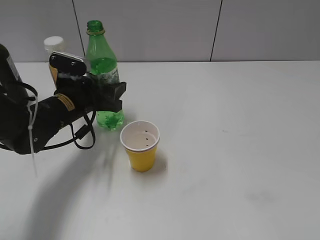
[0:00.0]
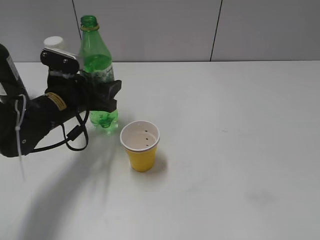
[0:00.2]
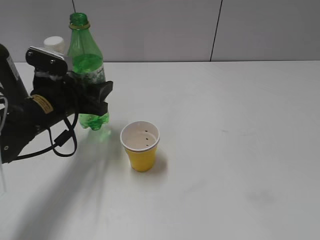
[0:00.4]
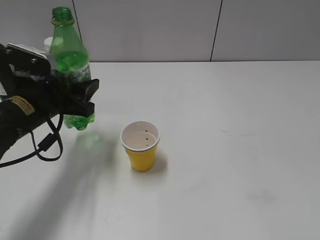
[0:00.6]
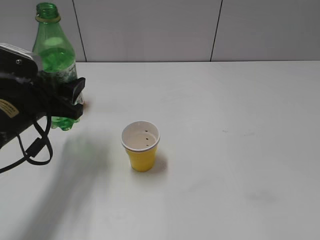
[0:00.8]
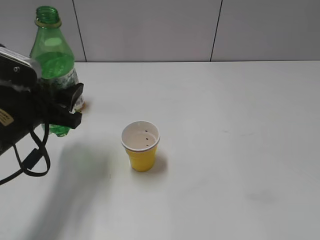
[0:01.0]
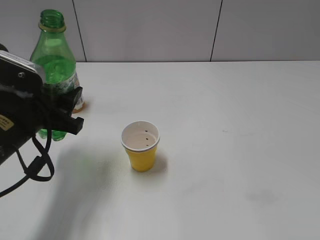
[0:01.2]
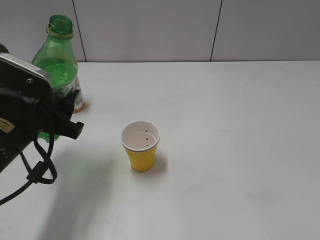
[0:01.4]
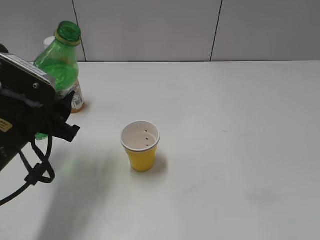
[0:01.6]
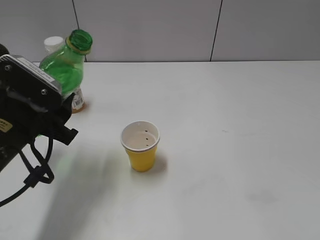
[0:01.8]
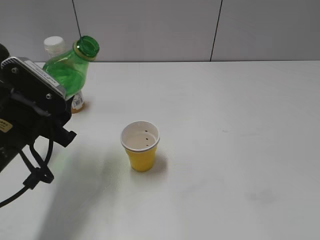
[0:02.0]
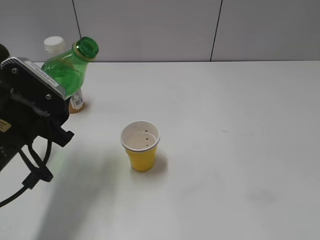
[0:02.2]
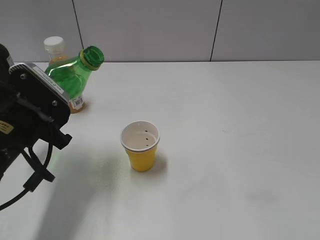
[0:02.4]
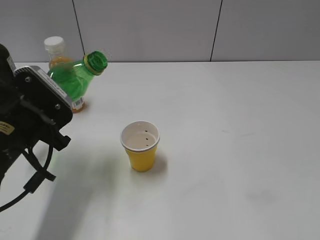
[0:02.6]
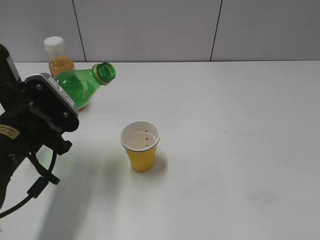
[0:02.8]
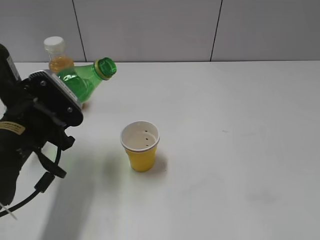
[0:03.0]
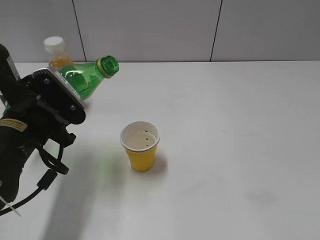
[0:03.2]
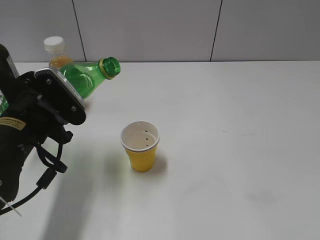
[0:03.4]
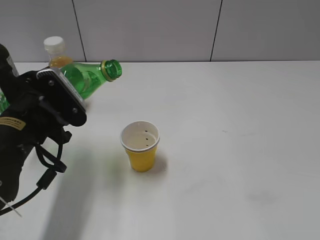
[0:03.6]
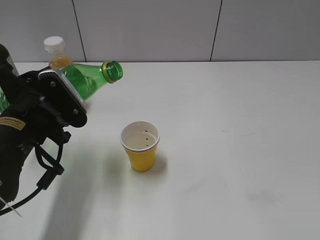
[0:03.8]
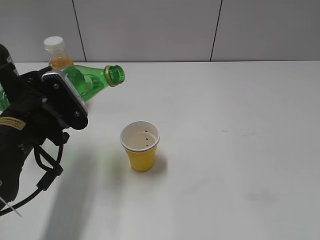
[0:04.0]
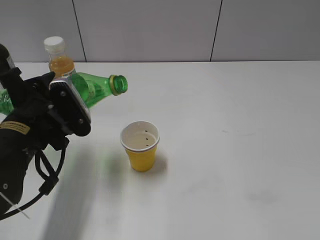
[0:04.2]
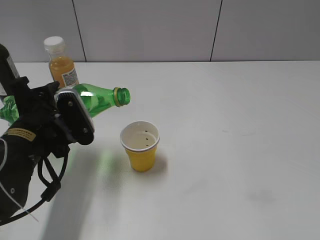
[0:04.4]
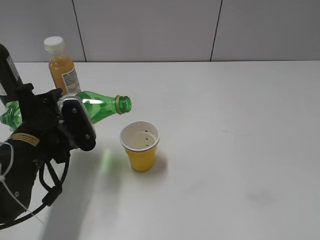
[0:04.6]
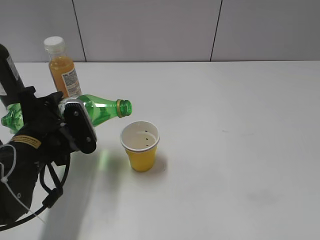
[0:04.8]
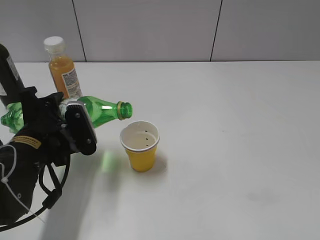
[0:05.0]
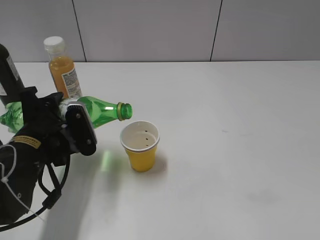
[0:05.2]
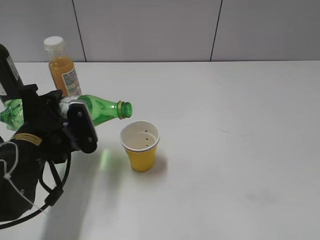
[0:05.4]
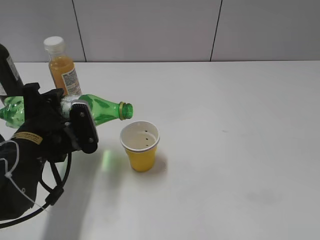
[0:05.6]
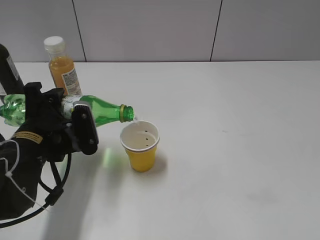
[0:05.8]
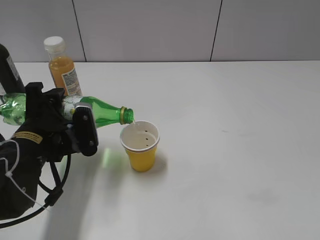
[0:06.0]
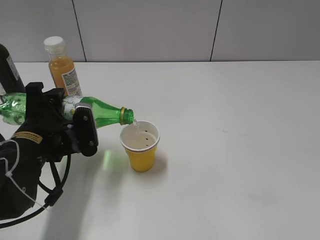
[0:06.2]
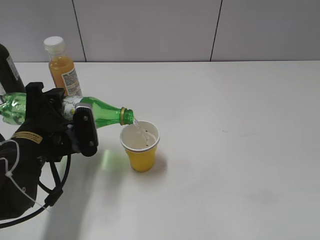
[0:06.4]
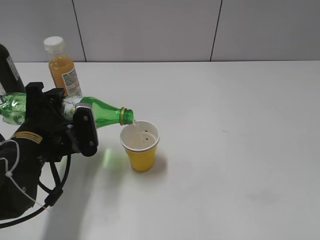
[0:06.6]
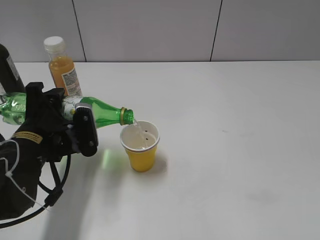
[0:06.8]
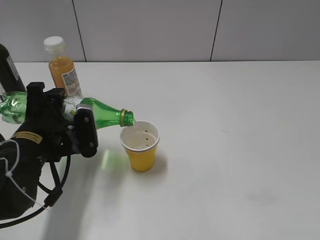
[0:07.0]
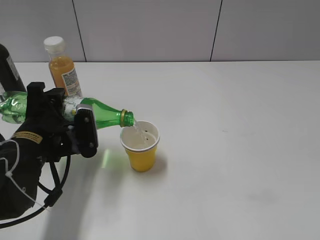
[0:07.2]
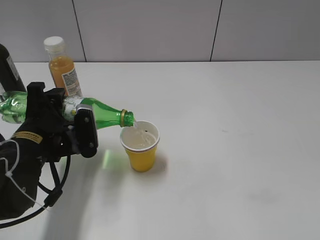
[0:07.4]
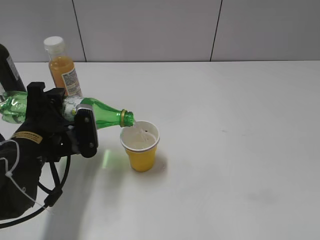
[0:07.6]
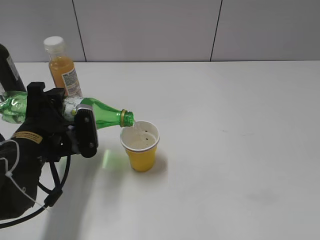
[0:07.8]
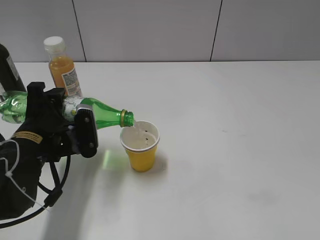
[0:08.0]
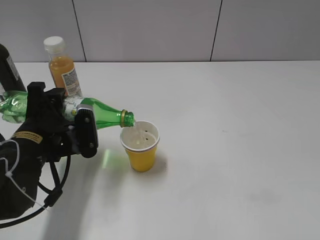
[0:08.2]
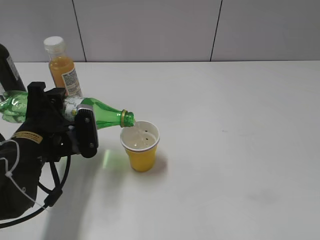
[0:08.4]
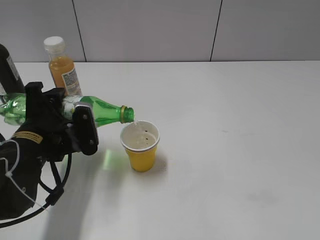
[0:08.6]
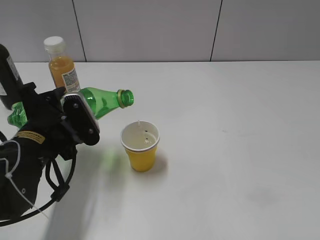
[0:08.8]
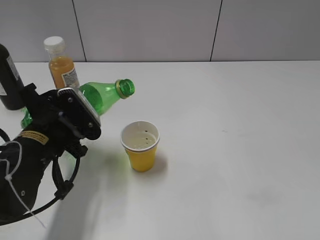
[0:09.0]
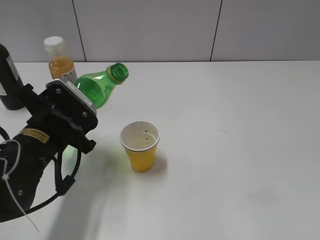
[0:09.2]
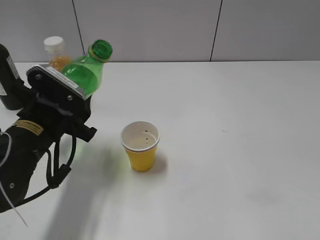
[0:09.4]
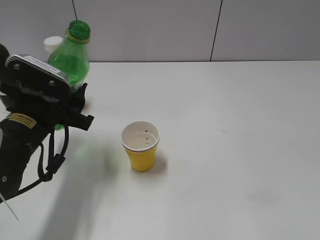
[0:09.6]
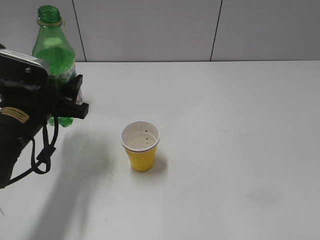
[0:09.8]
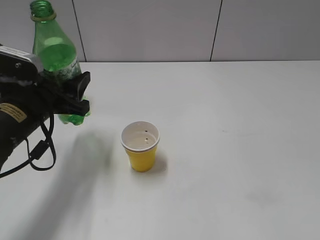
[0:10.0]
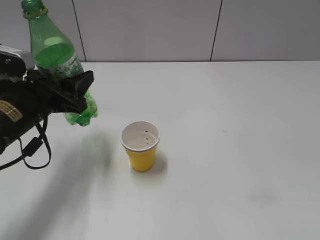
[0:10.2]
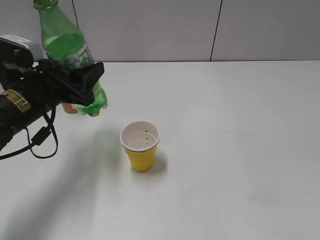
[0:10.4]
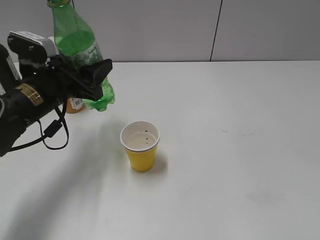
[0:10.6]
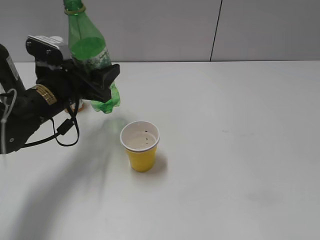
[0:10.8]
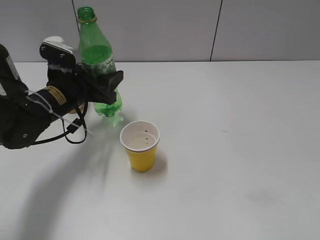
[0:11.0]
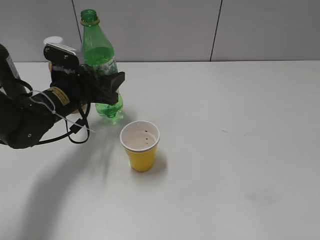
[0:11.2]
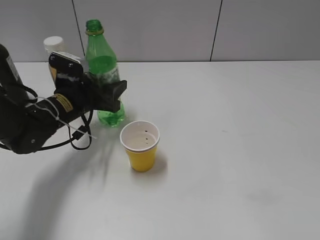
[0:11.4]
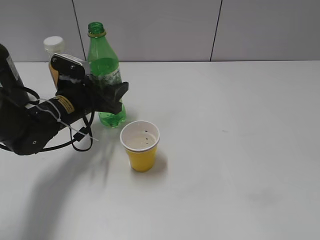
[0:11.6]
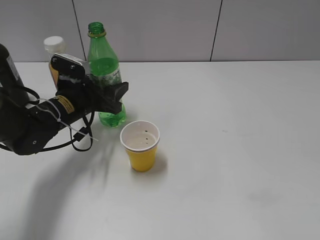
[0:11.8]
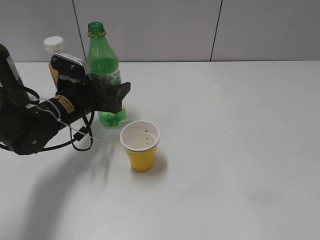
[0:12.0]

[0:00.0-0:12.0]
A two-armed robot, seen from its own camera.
Step, 0:00.0 to 0:08.8: Pour the sprite from bottle to cup with left gripper.
0:00.0 to 0:01.6: The left gripper moves backward and upward, about 15 cm.
0:03.0 to 0:04.4: There are only small adjustments of the grippers.
0:04.4 to 0:06.0: The grippers make only small movements.
0:06.0 to 0:07.6: The two grippers keep their place.
0:09.0 to 0:10.4: The left gripper changes place by roughly 5 cm.
0:10.4 to 0:12.0: The left gripper shifts some 10 cm downward and forward, and opens its fingers.

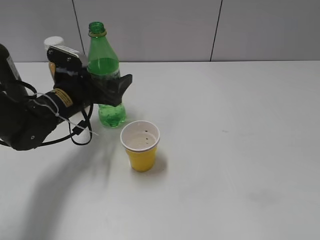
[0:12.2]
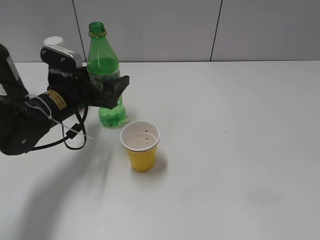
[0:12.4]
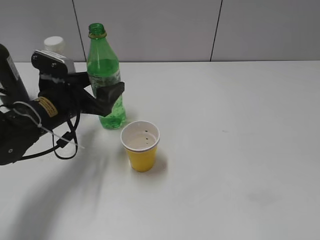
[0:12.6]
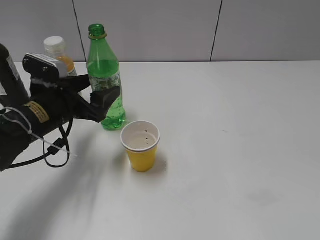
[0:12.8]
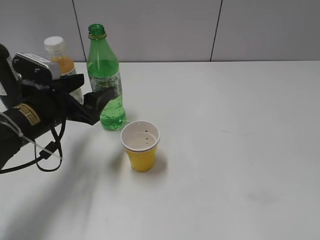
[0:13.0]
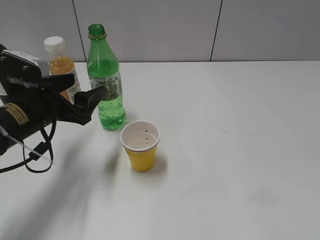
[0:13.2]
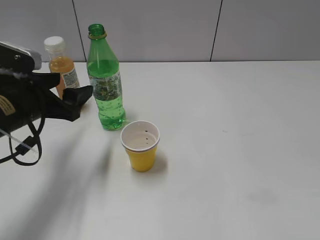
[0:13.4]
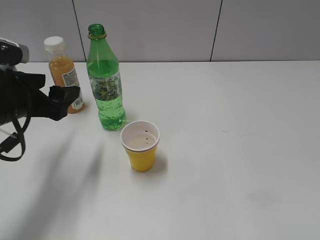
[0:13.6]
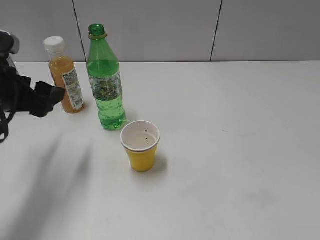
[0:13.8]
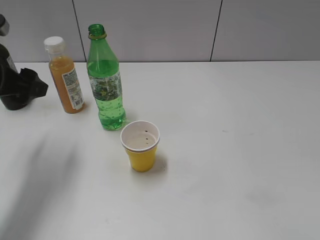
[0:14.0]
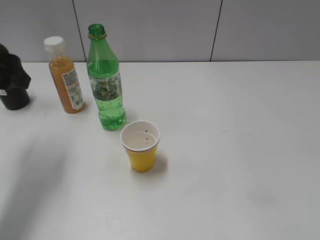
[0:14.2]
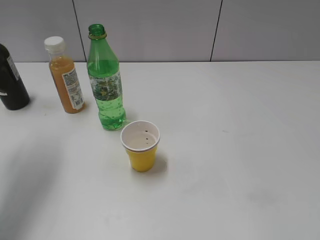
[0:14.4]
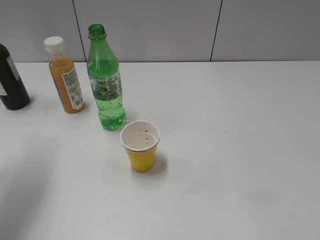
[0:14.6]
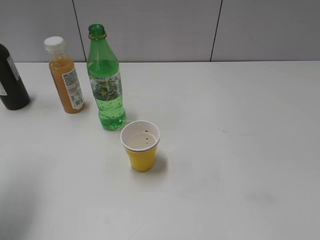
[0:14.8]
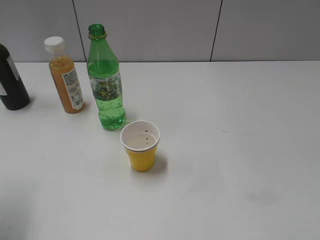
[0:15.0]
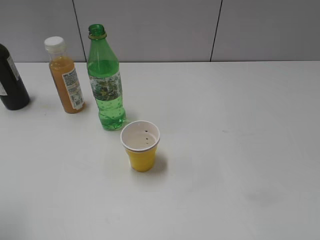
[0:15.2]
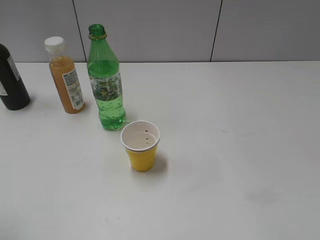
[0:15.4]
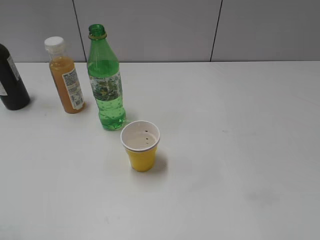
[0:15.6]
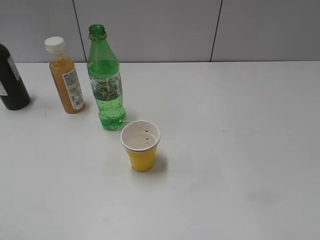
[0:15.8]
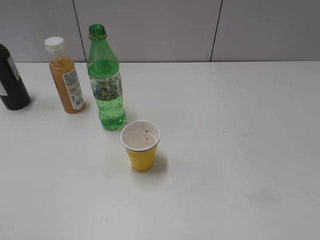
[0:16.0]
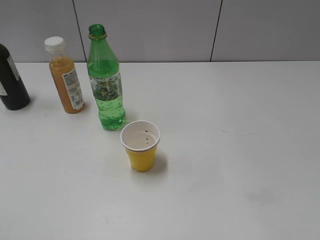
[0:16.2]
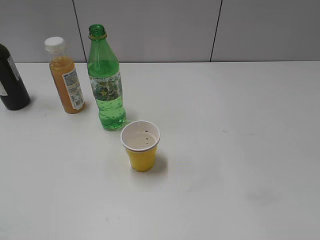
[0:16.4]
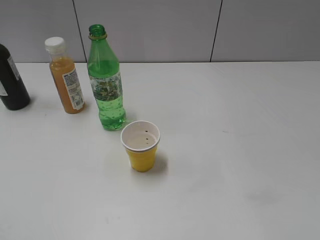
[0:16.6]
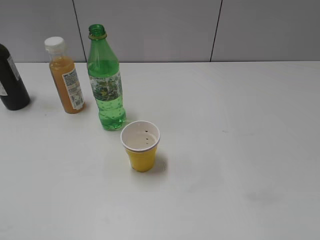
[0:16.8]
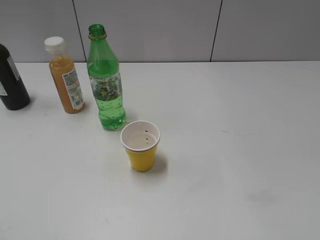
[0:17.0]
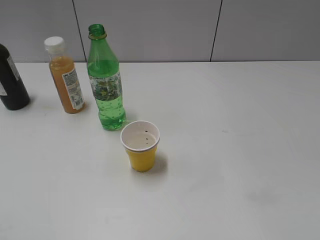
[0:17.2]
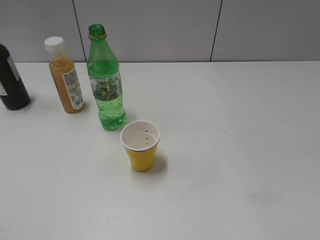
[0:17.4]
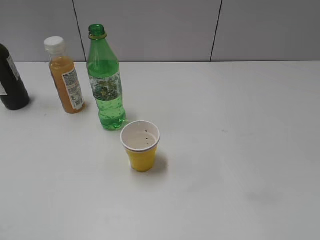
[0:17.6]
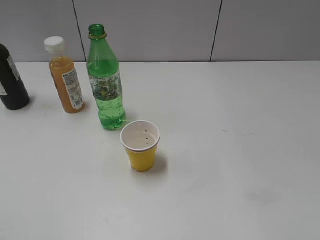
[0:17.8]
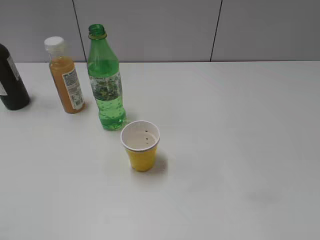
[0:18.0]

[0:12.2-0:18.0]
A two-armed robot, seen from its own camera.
0:12.2 to 0:13.6: The left gripper moves backward, upward and to the left, approximately 15 cm.
0:13.6 to 0:15.0: The left gripper travels backward, upward and to the left by some 15 cm.
0:15.0 to 0:16.6: The left gripper travels backward by approximately 20 cm.
0:16.6 to 0:18.0: Neither gripper changes place.

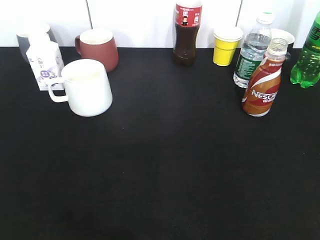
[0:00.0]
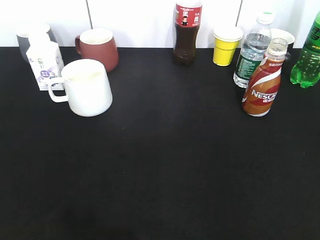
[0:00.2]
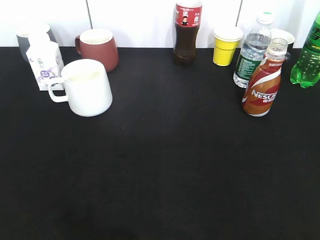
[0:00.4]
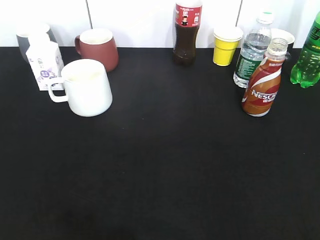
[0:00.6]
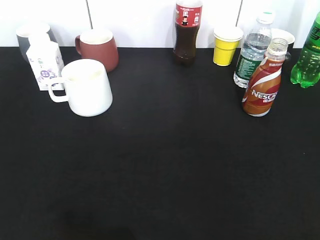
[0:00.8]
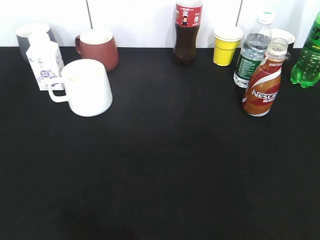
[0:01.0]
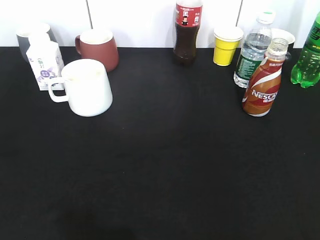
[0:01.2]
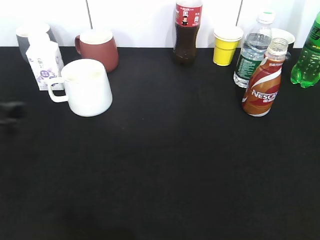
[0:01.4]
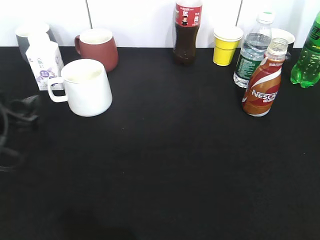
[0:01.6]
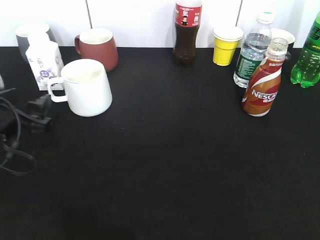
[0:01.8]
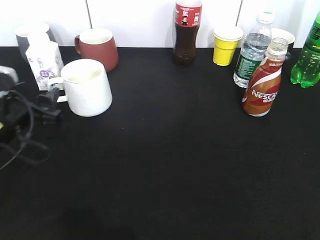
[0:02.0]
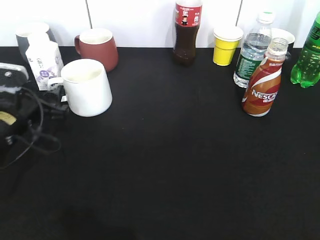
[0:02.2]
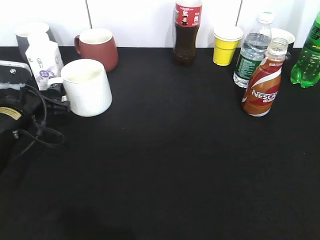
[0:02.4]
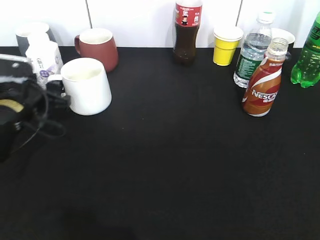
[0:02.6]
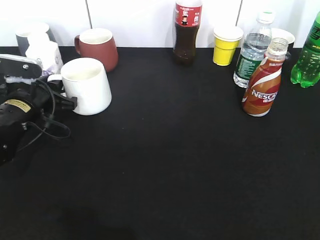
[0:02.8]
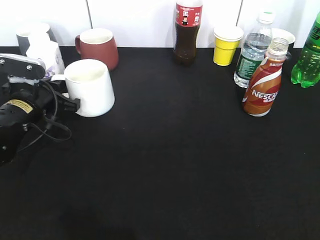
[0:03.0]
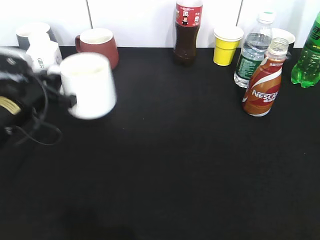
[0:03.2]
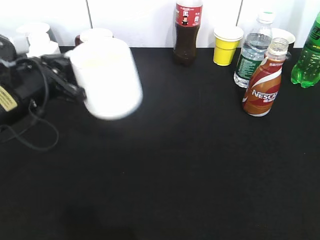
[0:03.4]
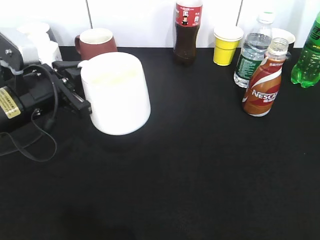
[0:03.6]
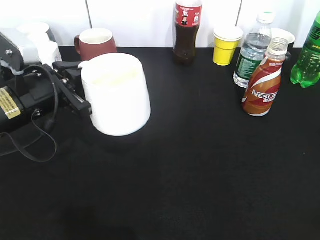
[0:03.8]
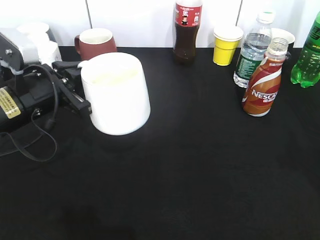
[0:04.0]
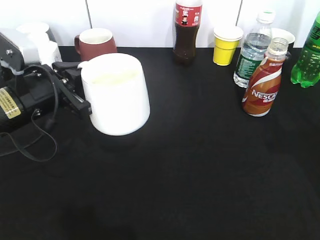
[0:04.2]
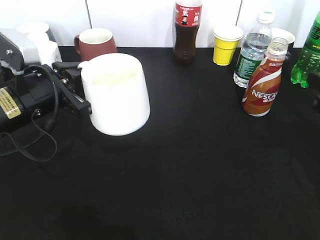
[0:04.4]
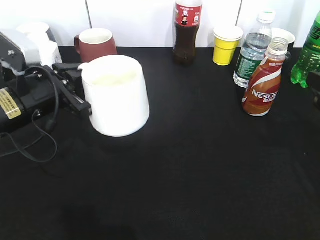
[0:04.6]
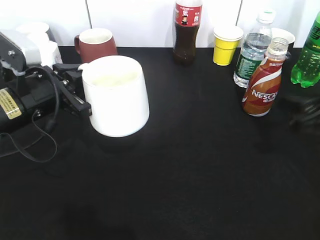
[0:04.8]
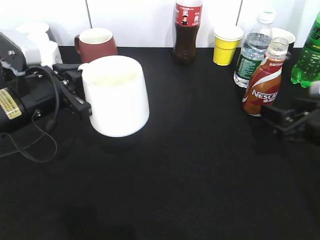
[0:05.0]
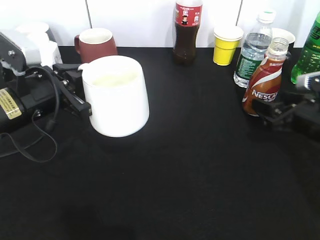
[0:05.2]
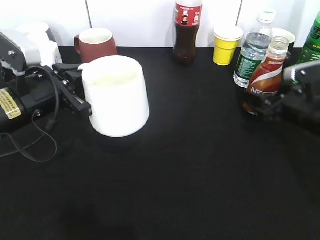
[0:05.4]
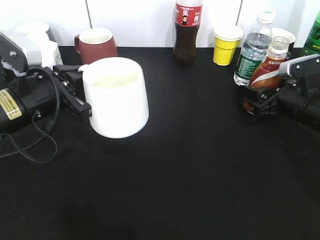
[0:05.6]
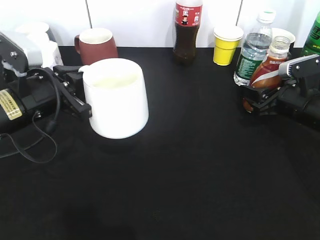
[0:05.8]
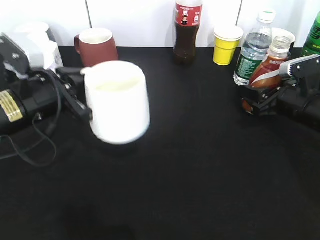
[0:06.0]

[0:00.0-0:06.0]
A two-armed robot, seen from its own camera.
Step, 0:00.6 to 0:02.8: Grasp the white cup with left gripper.
Step, 0:03.0 to 0:04.0: Lift the white cup with left gripper.
Step, 0:04.2 to 0:05.6: Grasp the bottle with coffee with right gripper.
0:00.0 to 0:01.6: The left gripper is displaced forward and downward by about 25 cm, and opens.
0:01.6 to 0:03.0: The left gripper travels forward by some 10 cm, and closes up.
0:03.0 to 0:04.4: The left gripper heads upward and backward, covering approximately 10 cm. The right gripper moves forward, about 20 cm.
0:04.4 to 0:06.0: The right gripper shifts roughly 15 cm forward and downward, and opens, then closes again.
